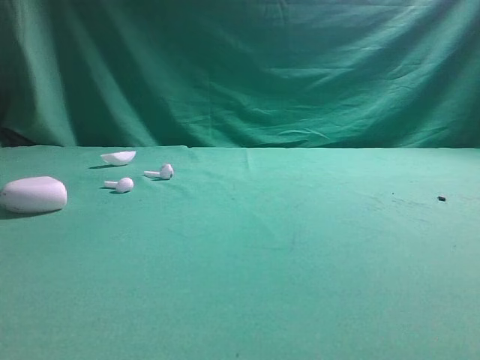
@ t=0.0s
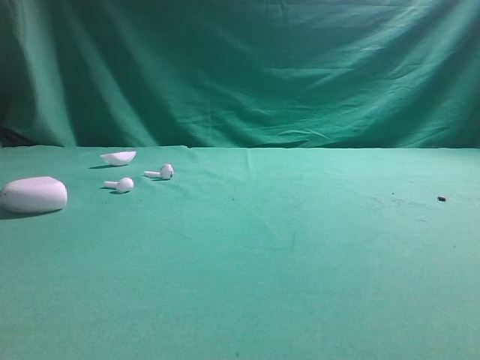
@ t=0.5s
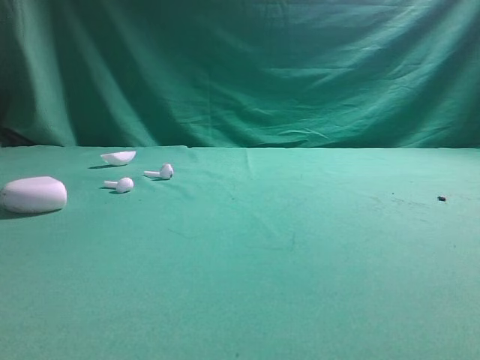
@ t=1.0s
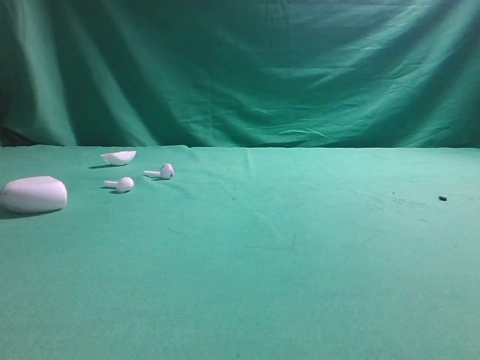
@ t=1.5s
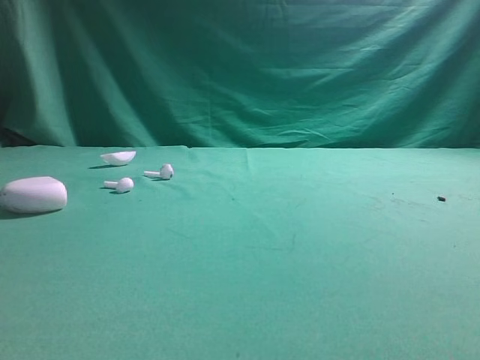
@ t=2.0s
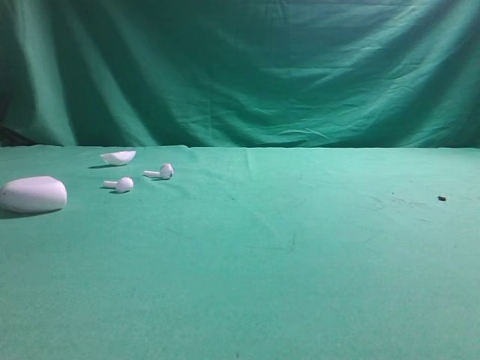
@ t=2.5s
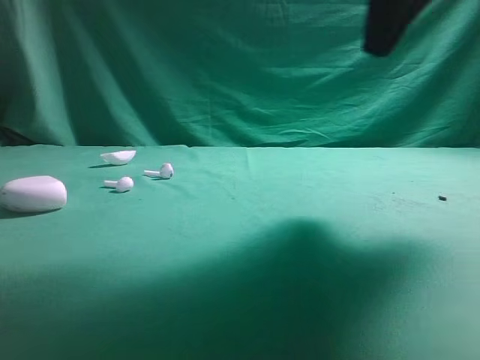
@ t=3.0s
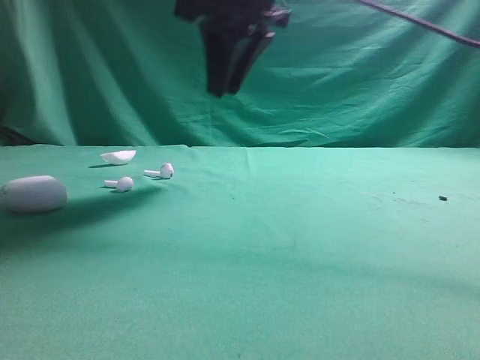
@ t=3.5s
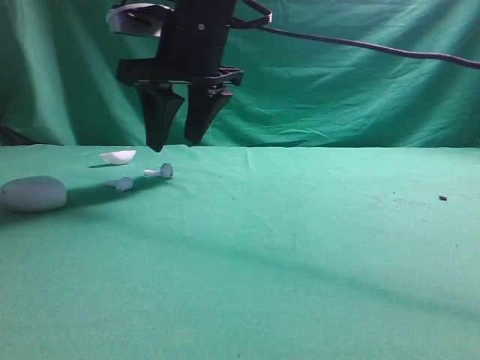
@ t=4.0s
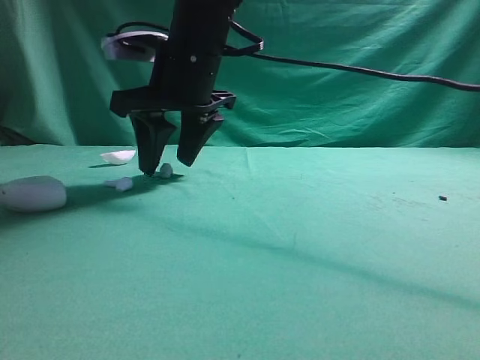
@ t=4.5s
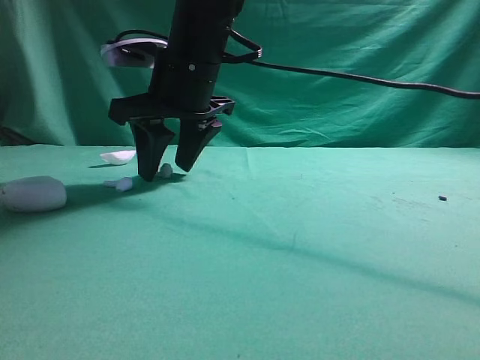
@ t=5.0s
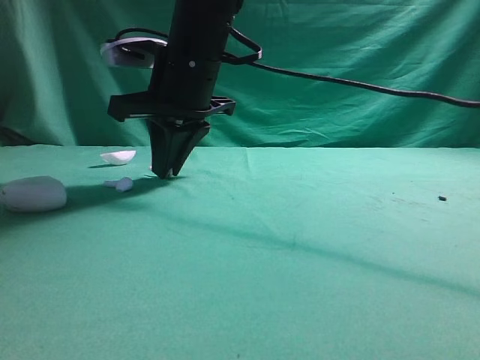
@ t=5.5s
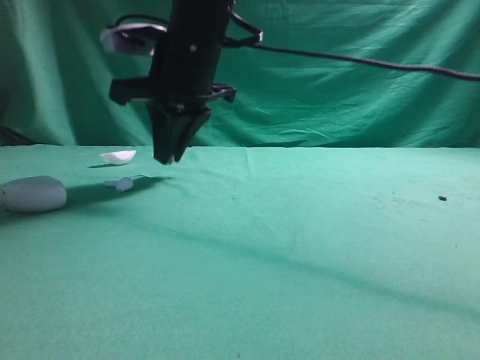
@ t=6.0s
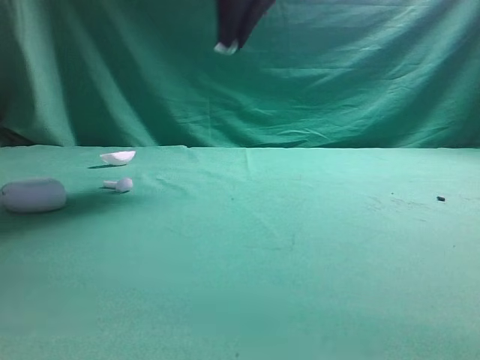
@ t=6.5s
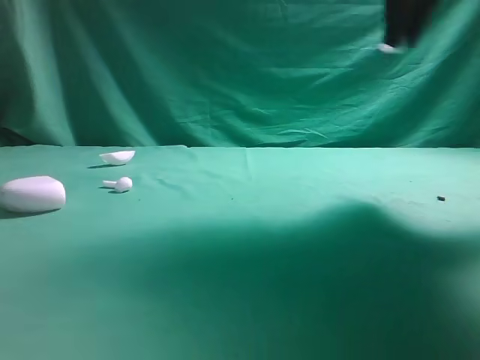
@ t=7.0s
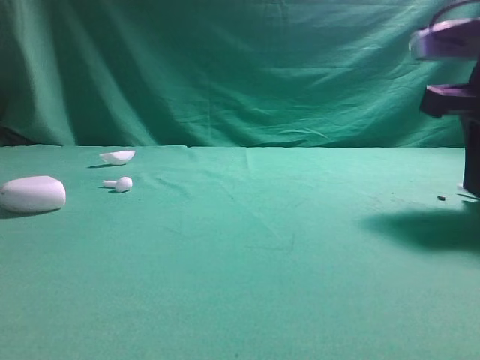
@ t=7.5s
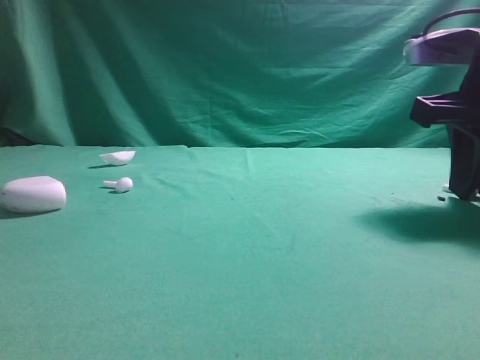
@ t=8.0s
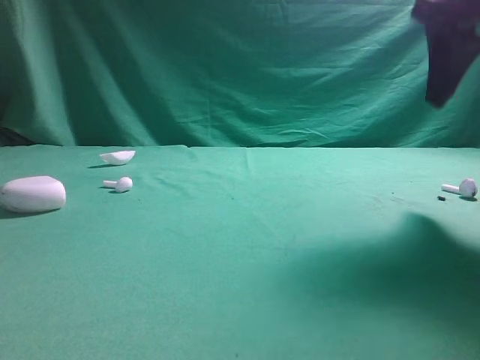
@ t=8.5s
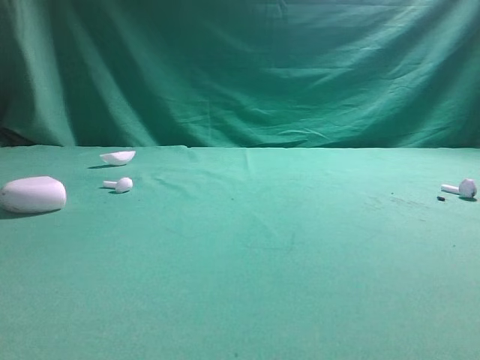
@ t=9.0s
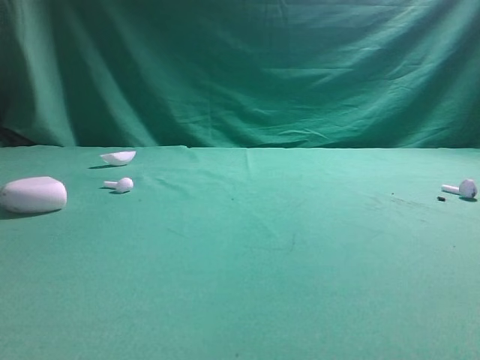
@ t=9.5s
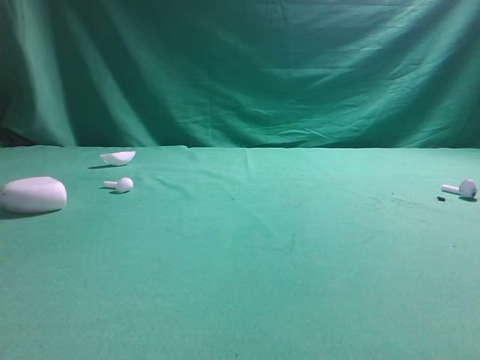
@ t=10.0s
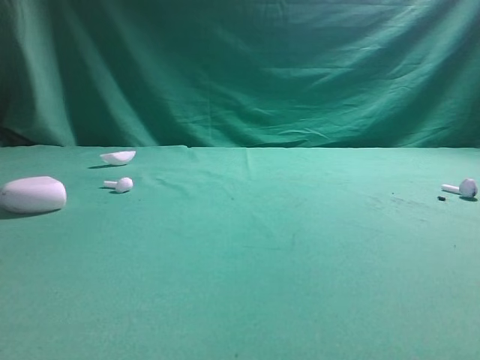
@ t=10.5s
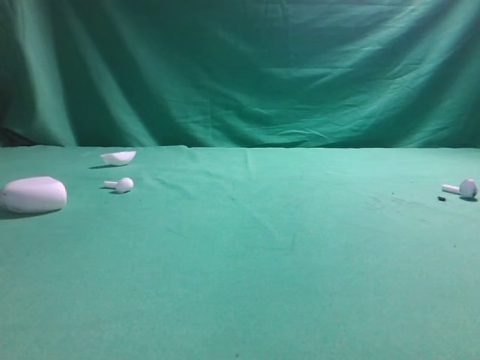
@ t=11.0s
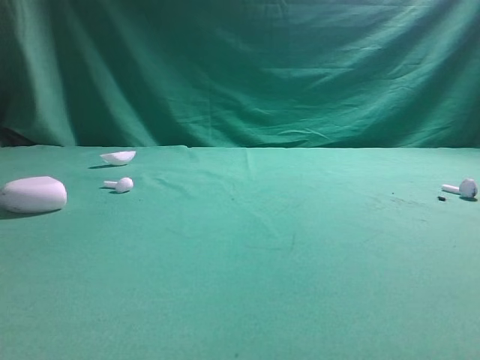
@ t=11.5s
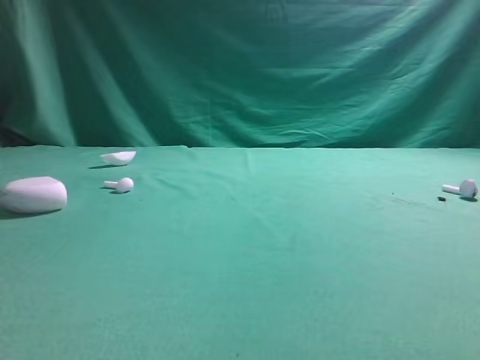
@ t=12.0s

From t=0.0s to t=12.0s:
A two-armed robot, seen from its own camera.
Step, from t=0.0s to t=6.0s: Grasp the Bluetooth earbud.
Step, from t=6.5s to t=8.5s: Place bluetooth earbud on the right side of the table.
